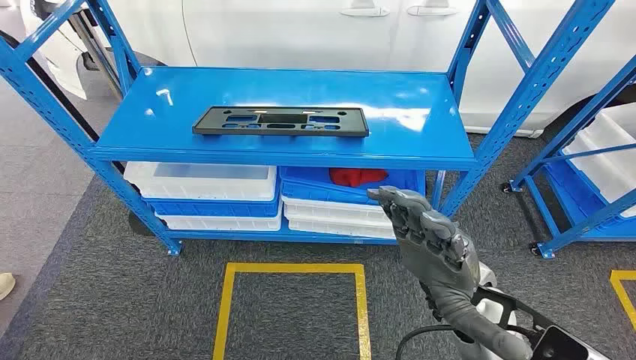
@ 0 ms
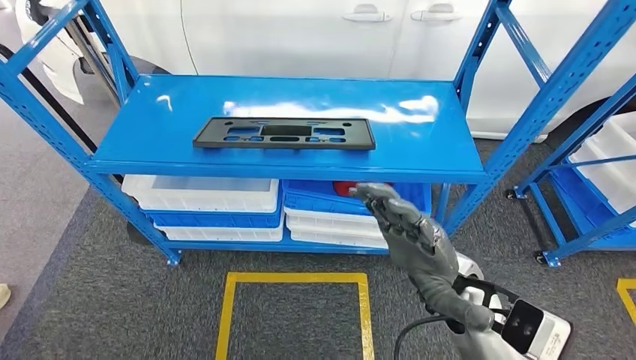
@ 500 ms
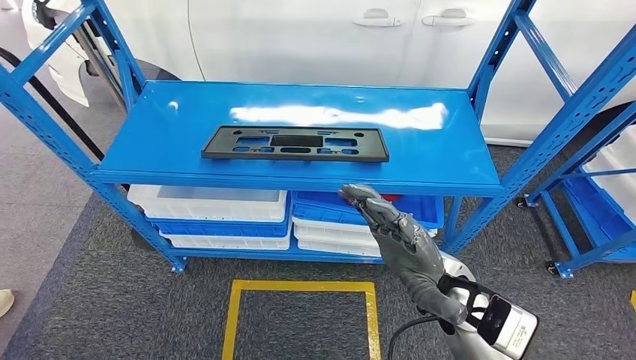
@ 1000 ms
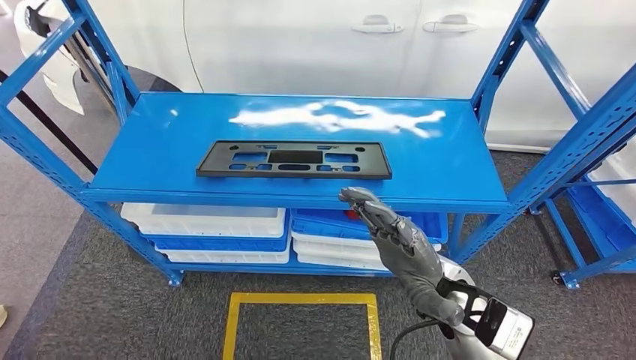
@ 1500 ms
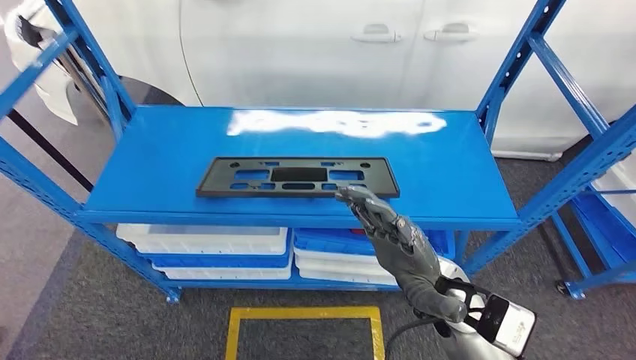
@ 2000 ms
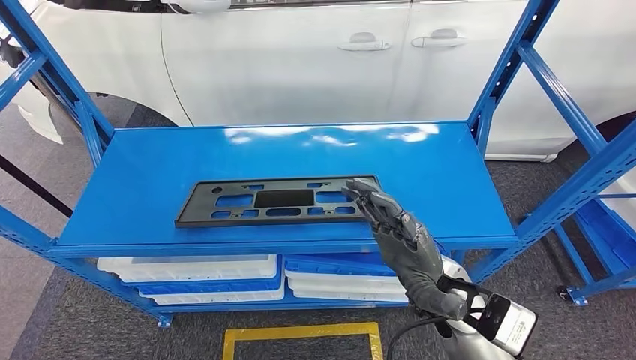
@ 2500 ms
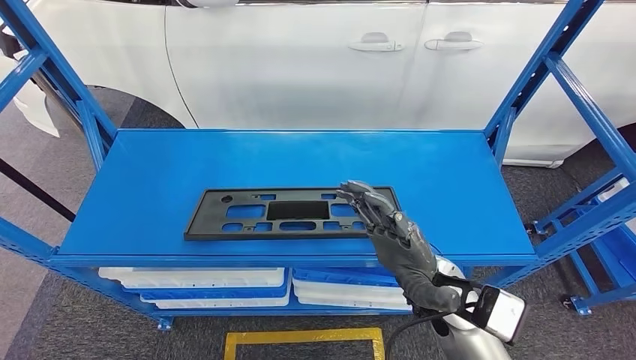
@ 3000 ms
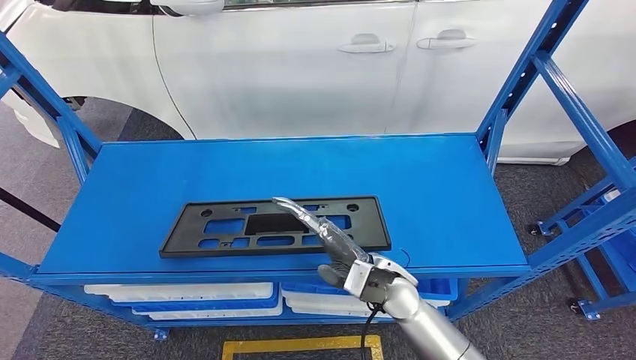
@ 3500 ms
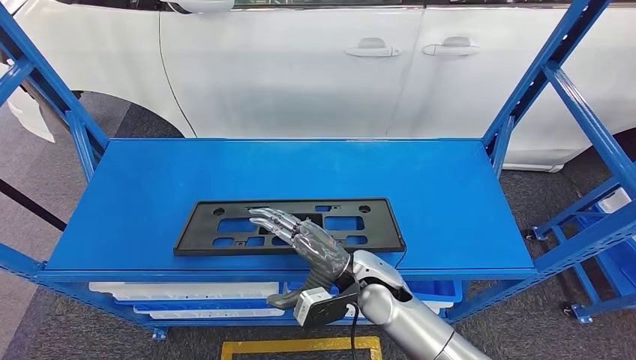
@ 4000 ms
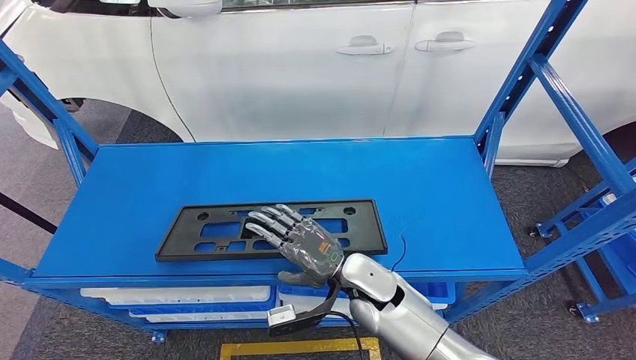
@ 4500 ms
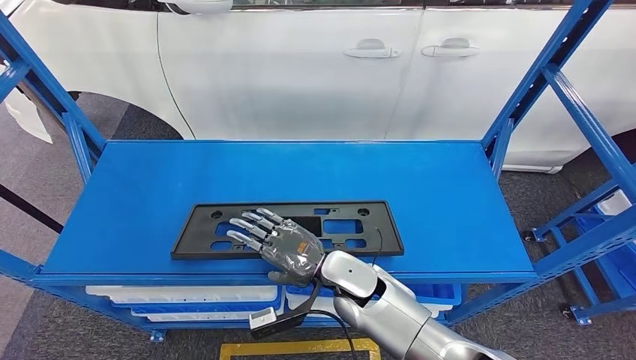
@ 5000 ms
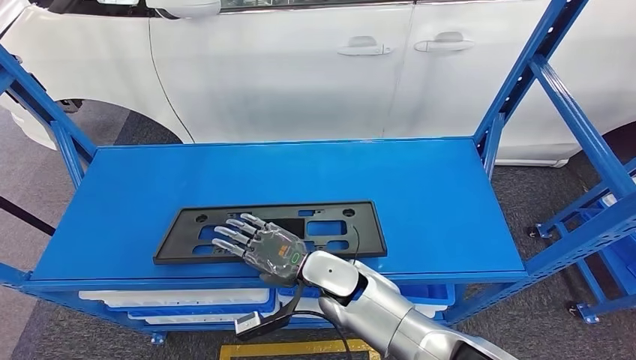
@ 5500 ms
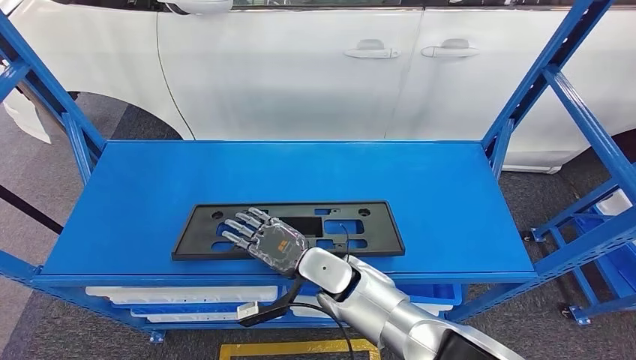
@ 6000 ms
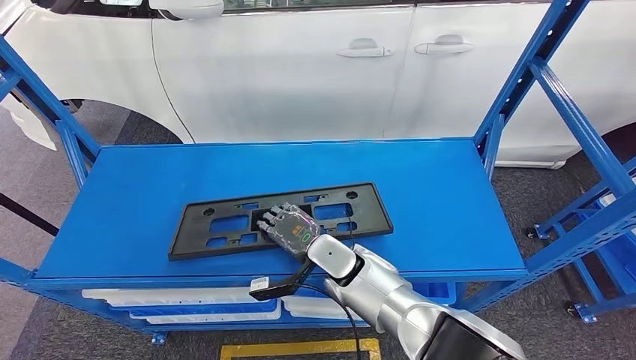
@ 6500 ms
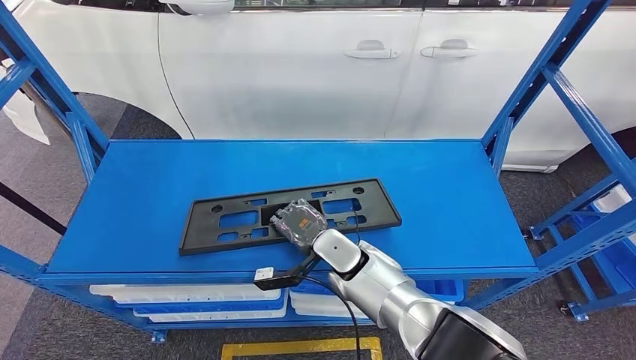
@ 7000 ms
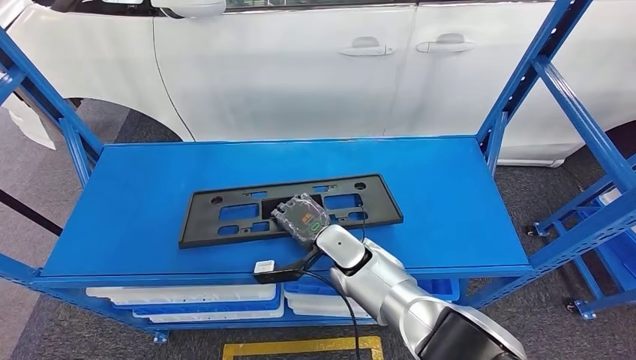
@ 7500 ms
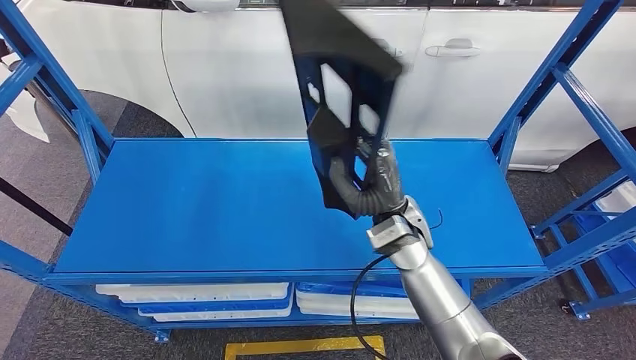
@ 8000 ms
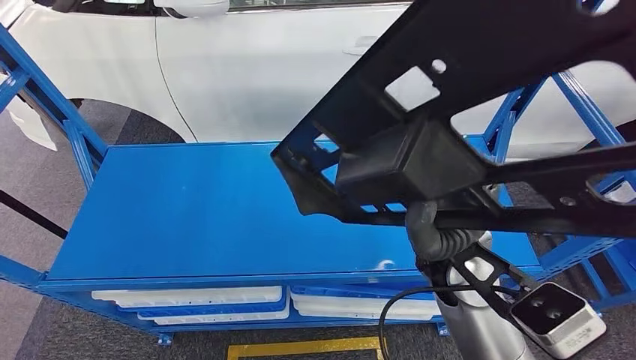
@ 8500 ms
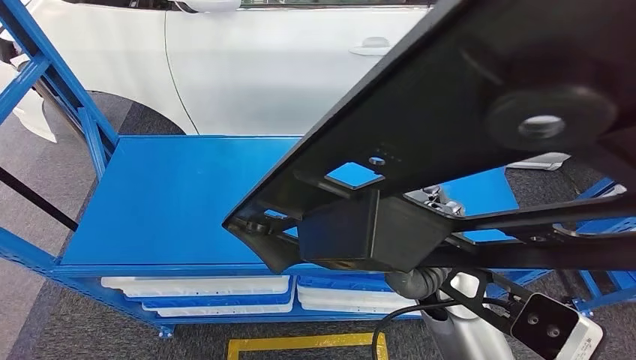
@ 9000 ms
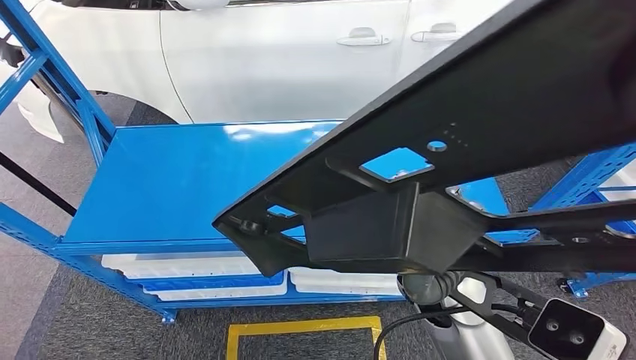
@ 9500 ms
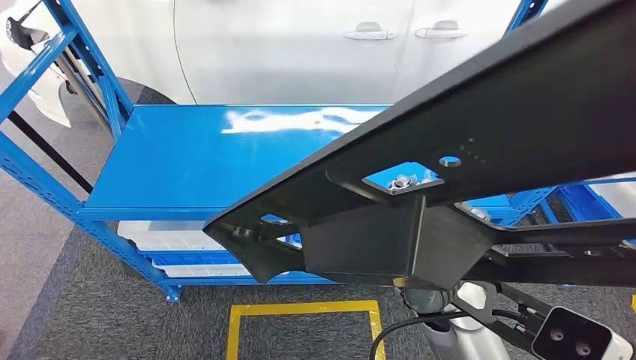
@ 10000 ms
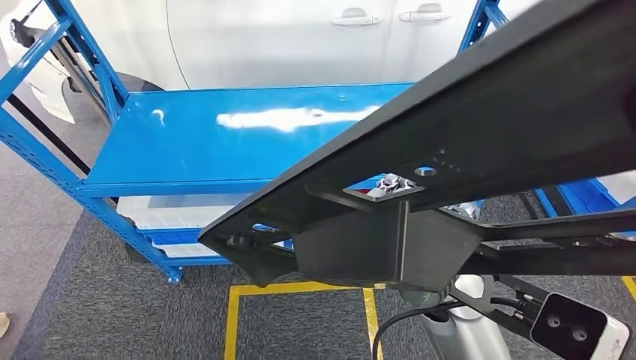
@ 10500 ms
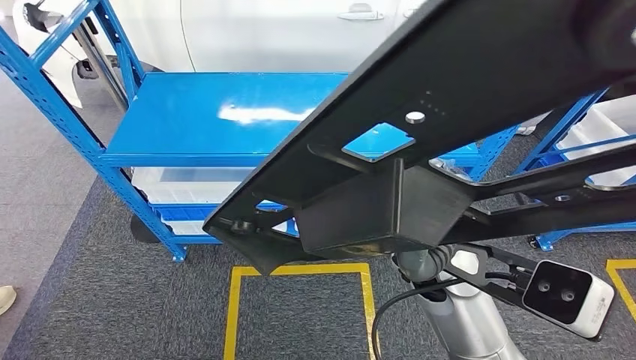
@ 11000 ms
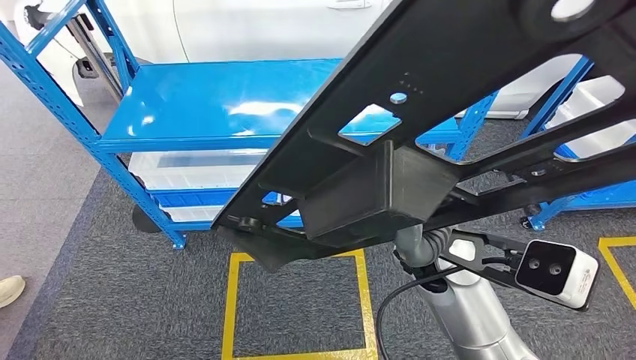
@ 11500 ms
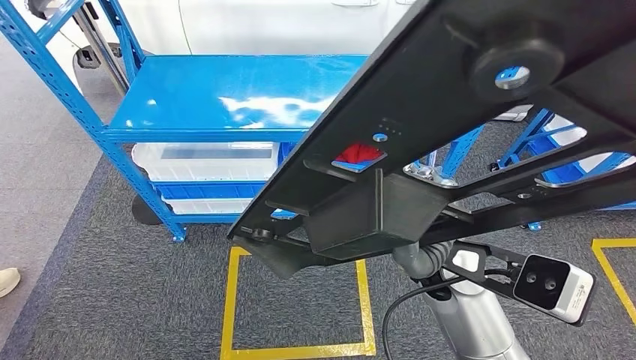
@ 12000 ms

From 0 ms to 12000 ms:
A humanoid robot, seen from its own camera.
Step, from 0 ms to 7500 ms: Pick up the large material from the shelf.
From 4000 ms to 6000 ms: The right hand is displaced to the left by some 5 cm.

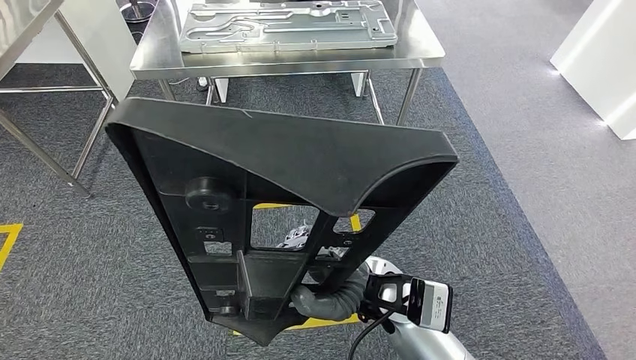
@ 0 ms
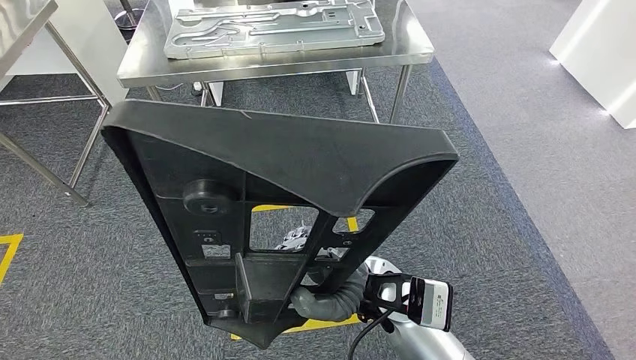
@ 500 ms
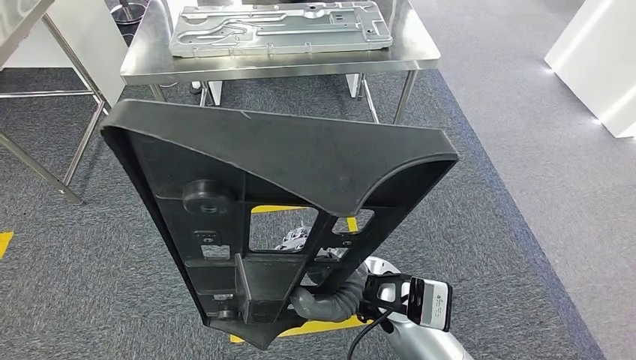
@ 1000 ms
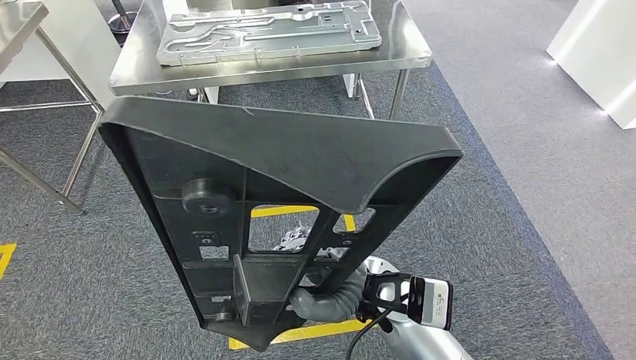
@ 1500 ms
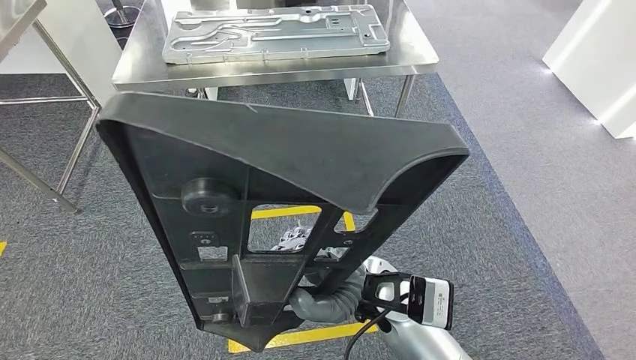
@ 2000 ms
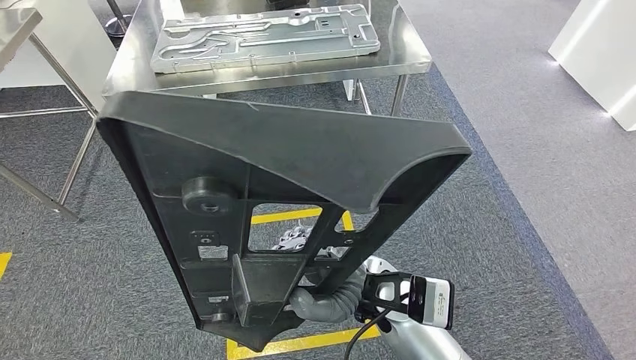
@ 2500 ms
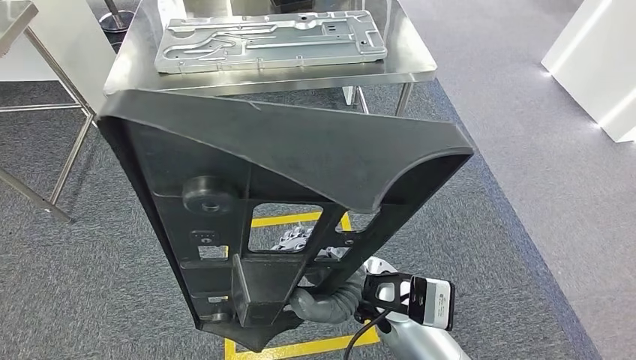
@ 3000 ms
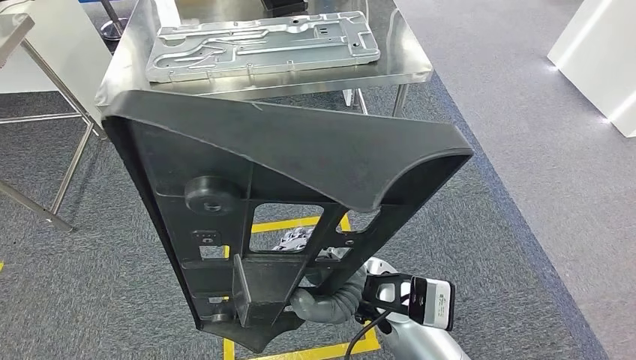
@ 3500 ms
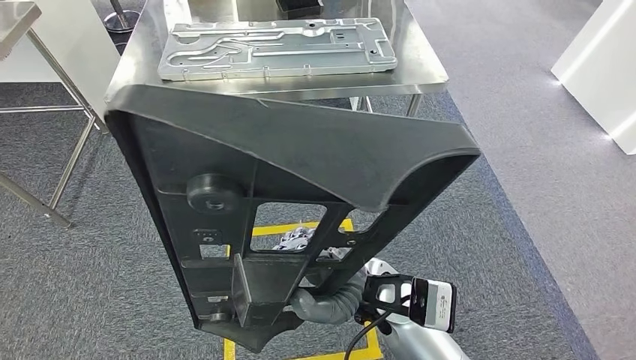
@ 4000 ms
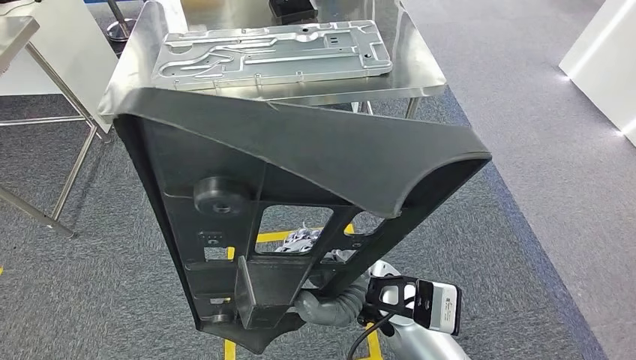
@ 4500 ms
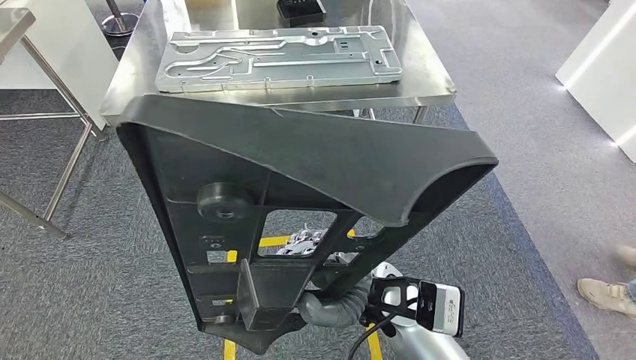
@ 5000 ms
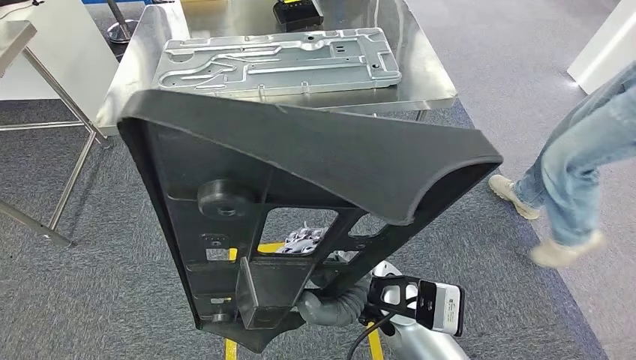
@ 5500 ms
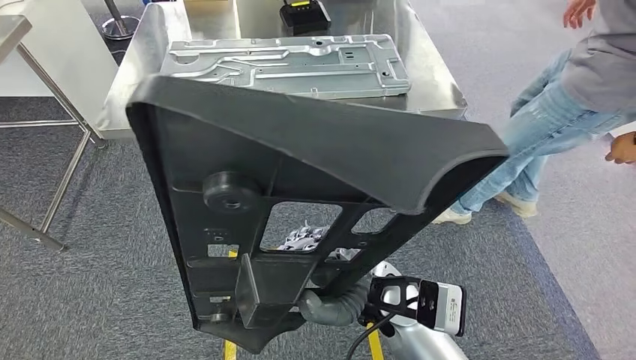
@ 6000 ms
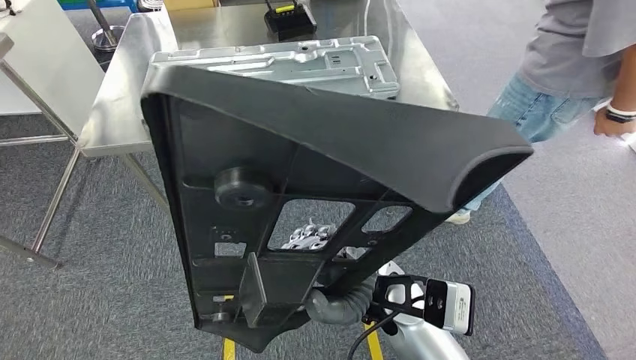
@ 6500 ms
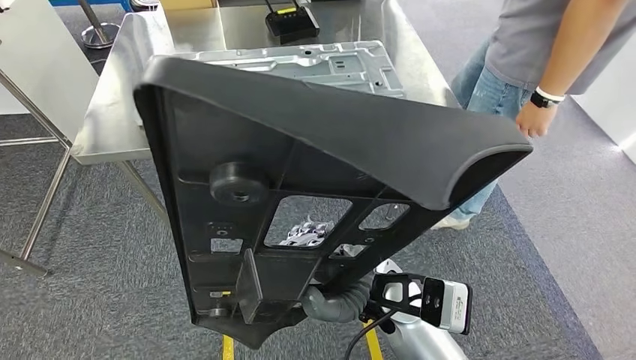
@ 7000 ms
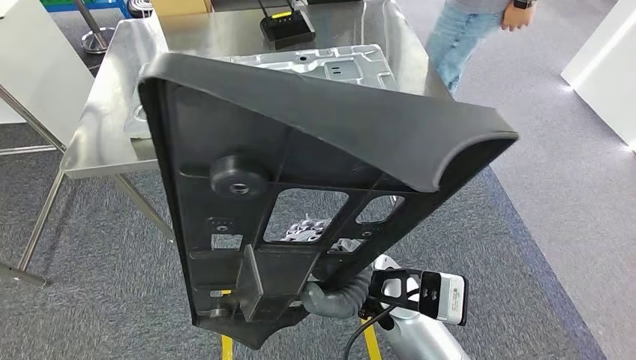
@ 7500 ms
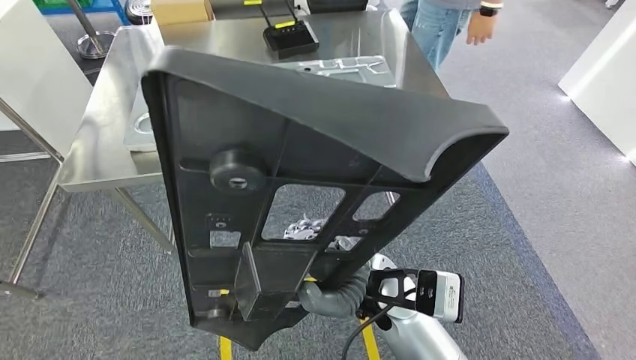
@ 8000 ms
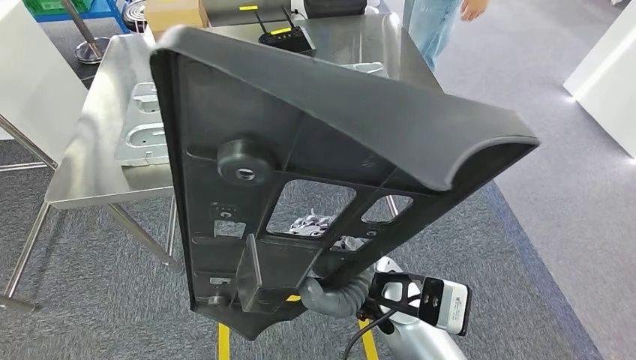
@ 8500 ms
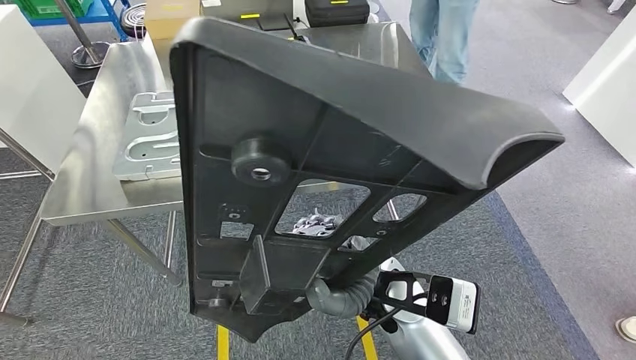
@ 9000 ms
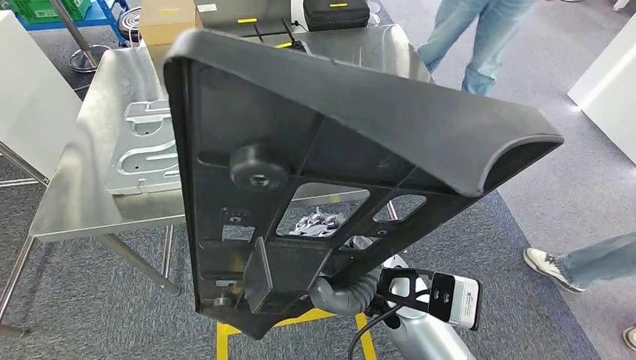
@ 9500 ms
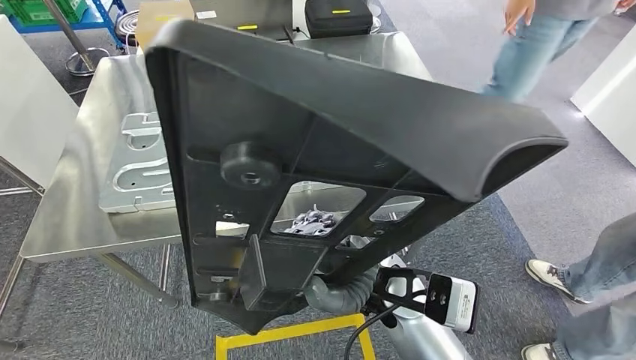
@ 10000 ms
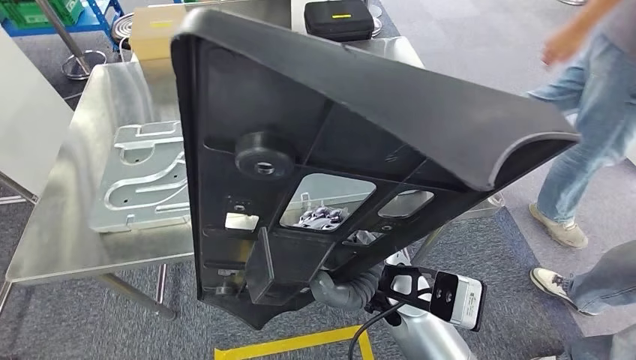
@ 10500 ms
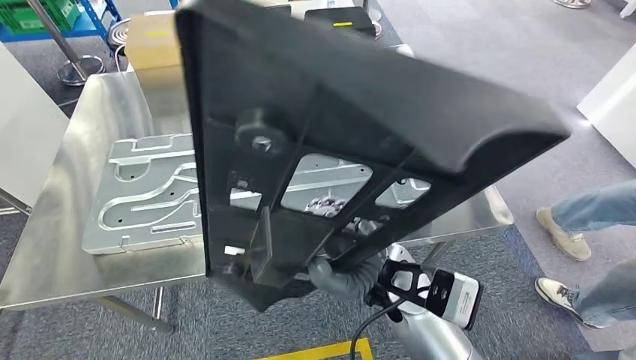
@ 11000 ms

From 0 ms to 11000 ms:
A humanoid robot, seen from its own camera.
Step, from 0 ms to 10000 ms: Move the large material to the workbench.
From 2000 ms to 3500 ms: The two hands keep their place.
